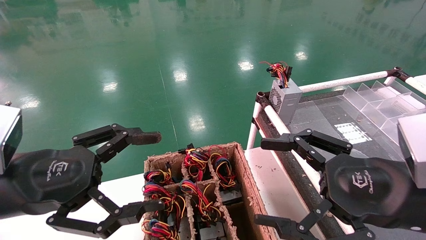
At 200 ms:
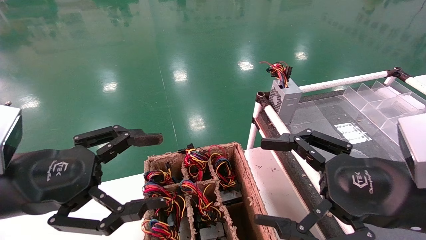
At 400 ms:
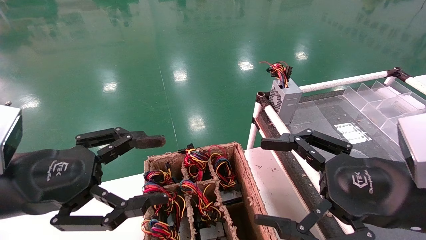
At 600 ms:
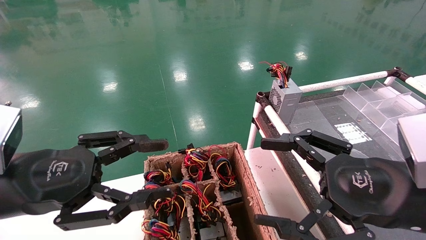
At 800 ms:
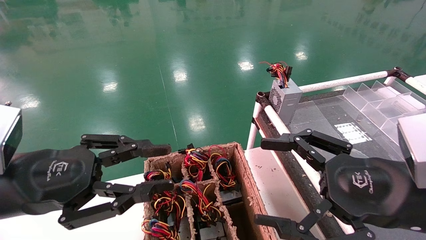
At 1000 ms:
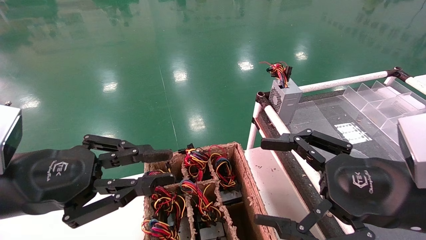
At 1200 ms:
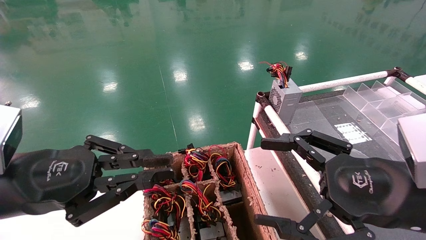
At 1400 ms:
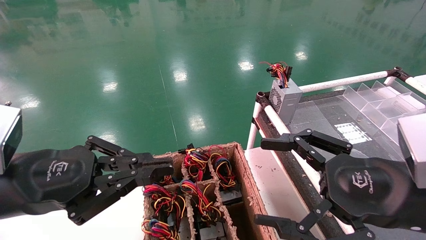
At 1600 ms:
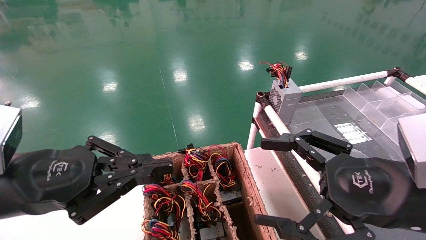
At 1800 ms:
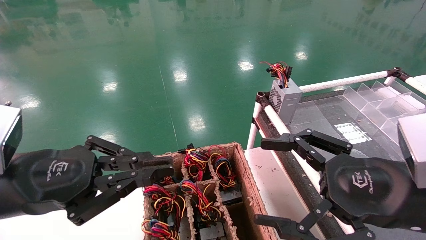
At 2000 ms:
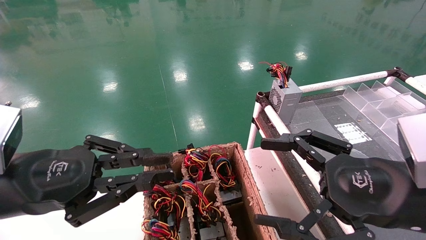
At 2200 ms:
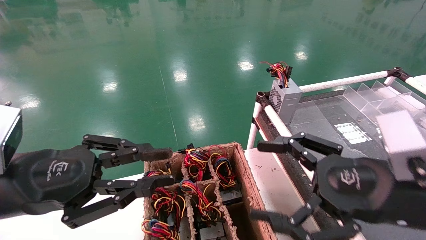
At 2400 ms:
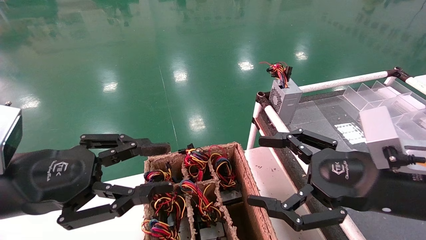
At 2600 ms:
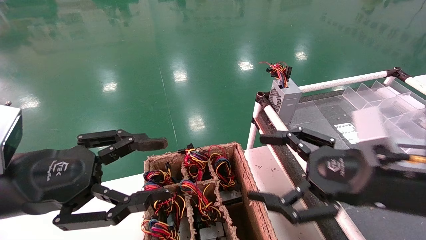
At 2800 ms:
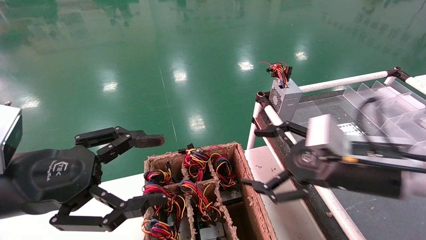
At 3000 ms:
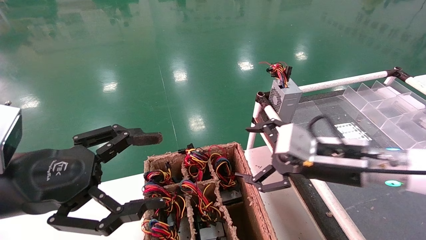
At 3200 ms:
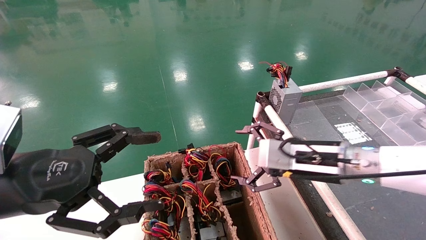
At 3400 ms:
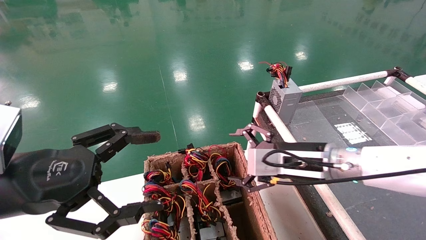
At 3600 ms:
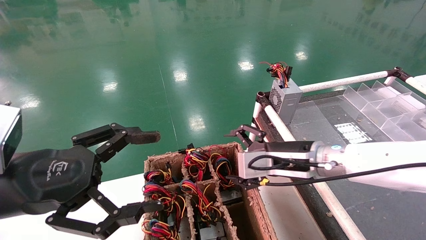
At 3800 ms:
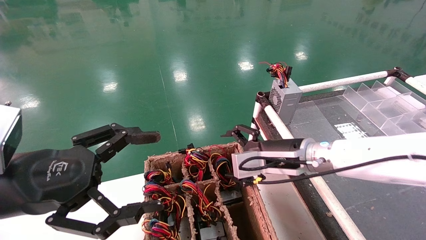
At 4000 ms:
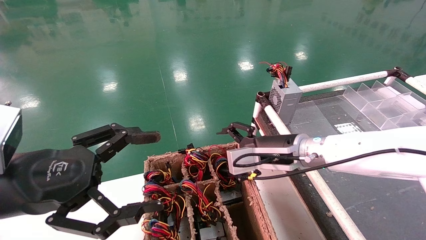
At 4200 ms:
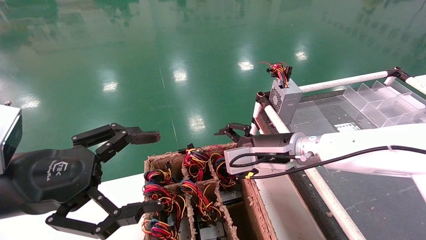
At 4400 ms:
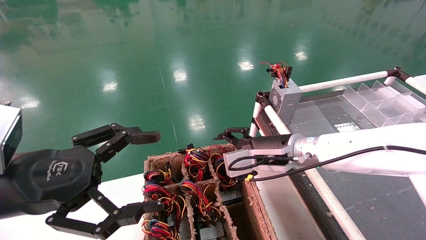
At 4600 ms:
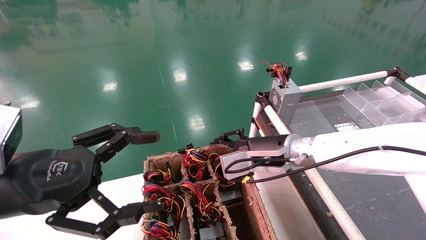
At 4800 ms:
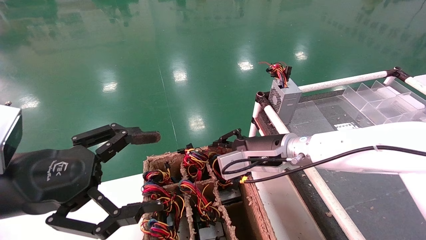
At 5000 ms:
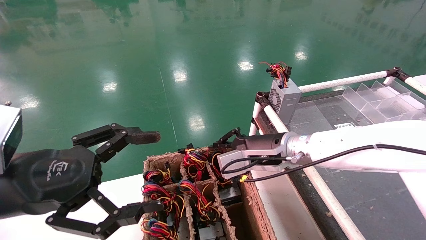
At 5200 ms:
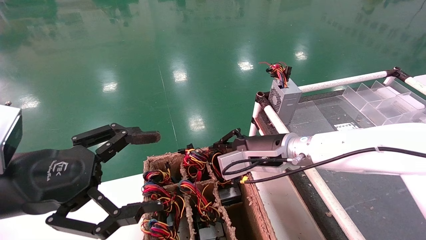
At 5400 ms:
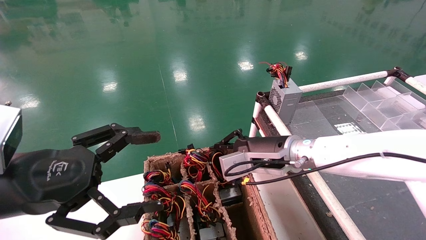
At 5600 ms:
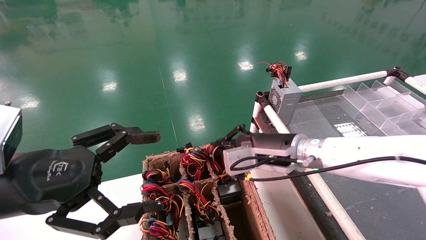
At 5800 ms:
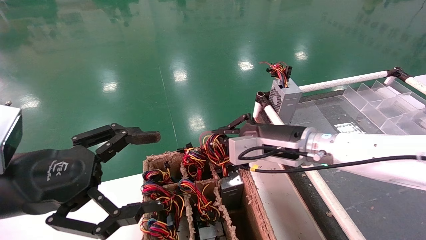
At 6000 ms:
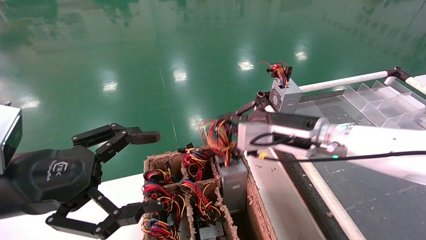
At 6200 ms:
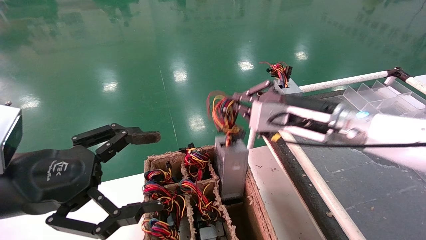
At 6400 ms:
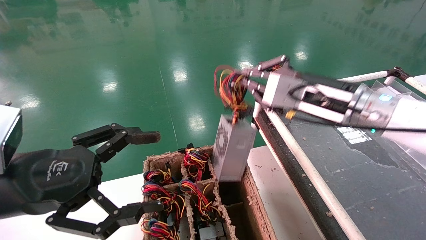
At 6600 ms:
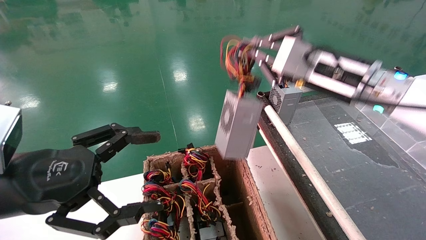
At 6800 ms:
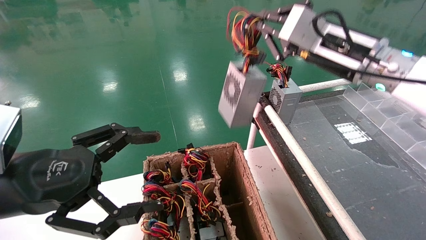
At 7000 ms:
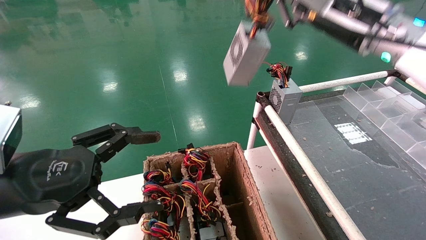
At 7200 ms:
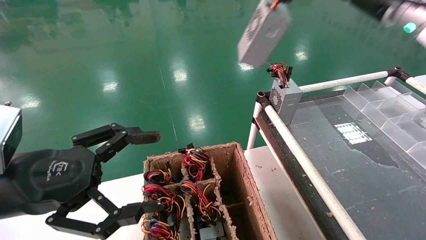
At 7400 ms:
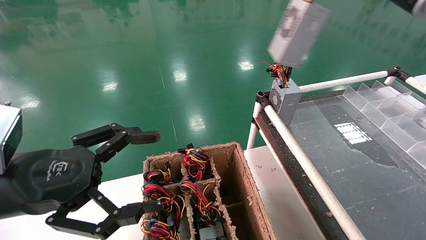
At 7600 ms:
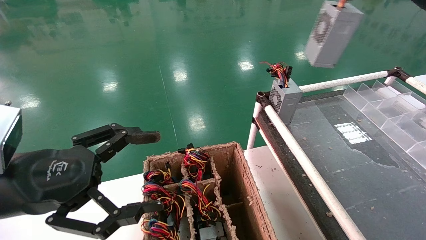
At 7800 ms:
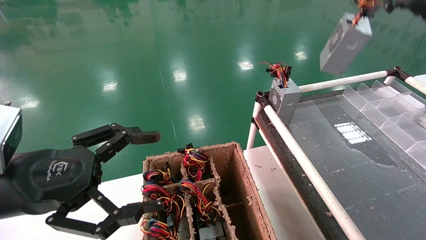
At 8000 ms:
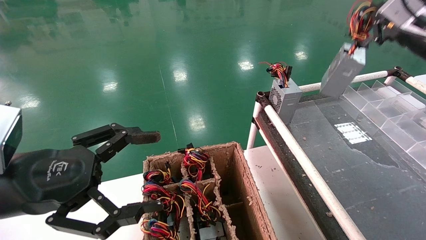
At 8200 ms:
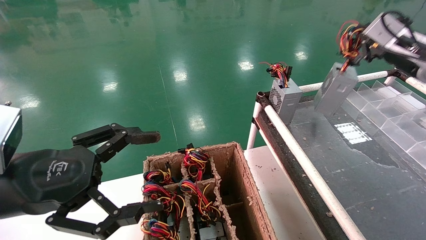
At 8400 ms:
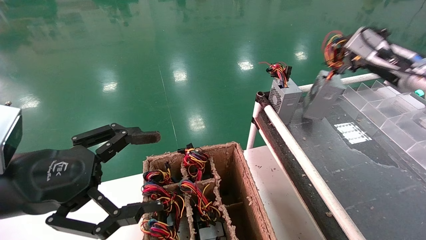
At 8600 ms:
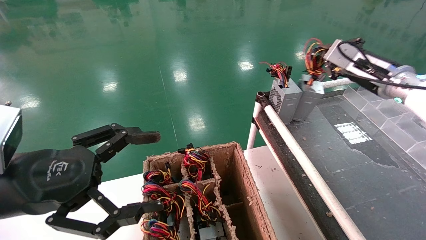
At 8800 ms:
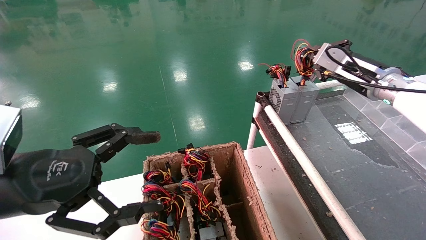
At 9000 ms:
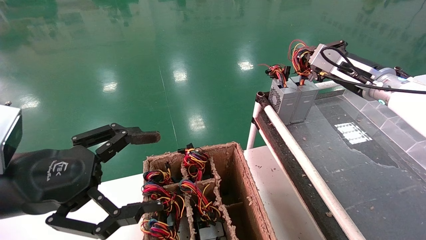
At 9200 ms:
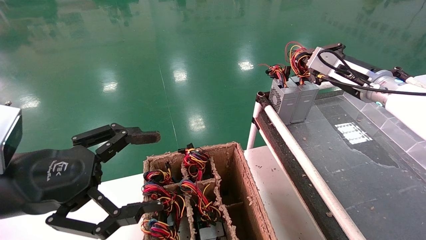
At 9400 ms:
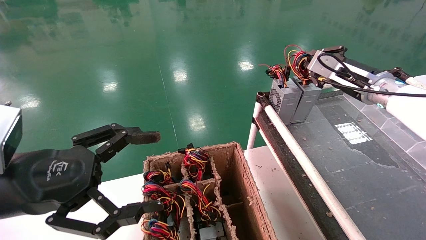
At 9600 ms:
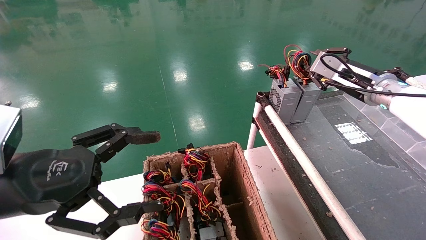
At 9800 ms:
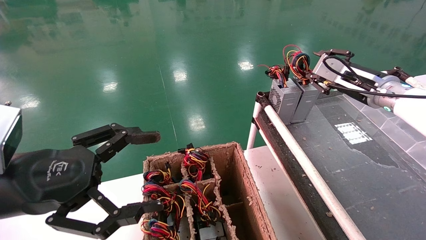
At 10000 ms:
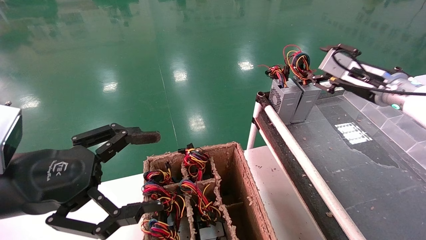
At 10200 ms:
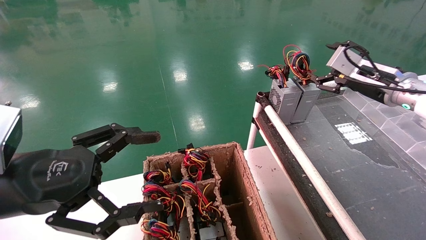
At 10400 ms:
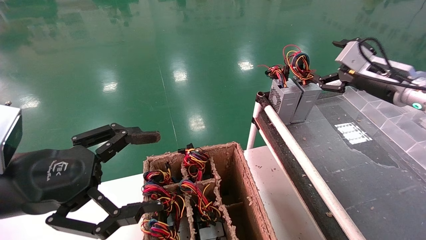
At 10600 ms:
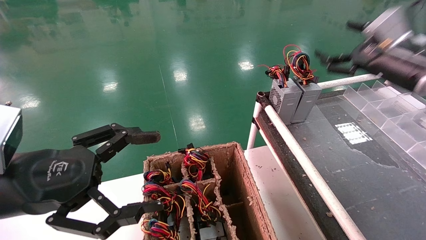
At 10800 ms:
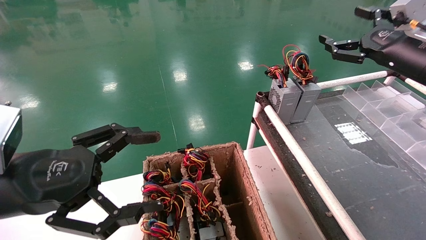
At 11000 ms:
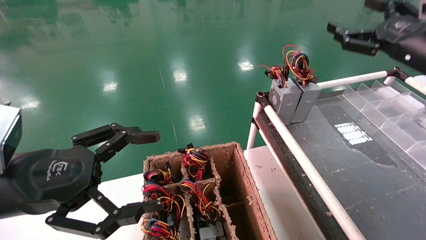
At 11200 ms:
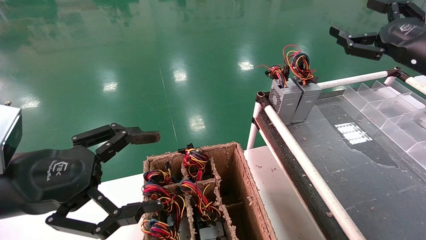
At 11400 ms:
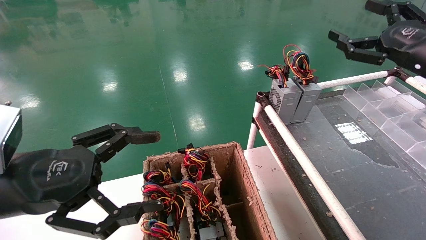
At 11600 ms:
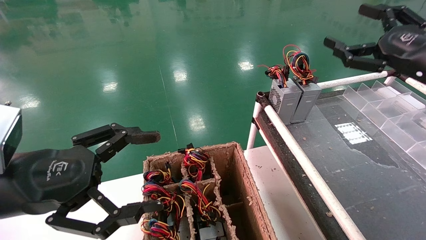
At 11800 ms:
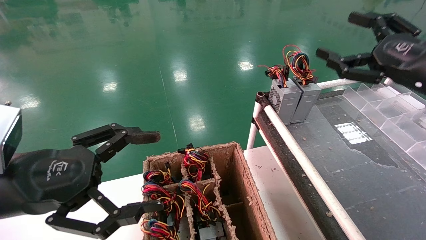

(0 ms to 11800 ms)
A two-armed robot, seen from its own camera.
Step, 1600 ms - 5400 ms: Grab and lift the power supply from the large box.
Step, 5600 ms - 9800 ms: Place the power supply on the operating table.
0 ms - 1400 ms: The left gripper closes its fingers.
1400 ms - 3000 ms: The left gripper opens; the right gripper travels forward by roughly 10 cm.
3000 ms - 4400 ms: The right gripper moves to the left and forward, approximately 10 cm.
4400 ms - 6000 ms: The right gripper moves upward, roughly 5 cm, and closes up.
6000 ms - 7400 ms: The right gripper heads upward and to the right, covering approximately 25 cm.
7400 ms - 8800 ms: The right gripper goes some 15 cm downward and forward.
8800 ms - 10400 ms: The right gripper opens.
10400 ms - 11800 ms: The right gripper goes approximately 10 cm backward.
